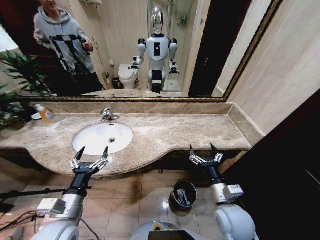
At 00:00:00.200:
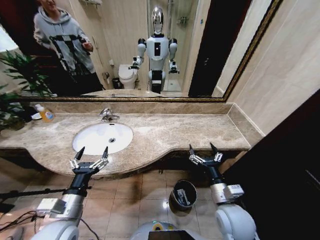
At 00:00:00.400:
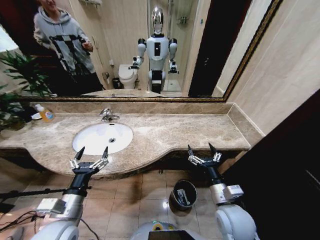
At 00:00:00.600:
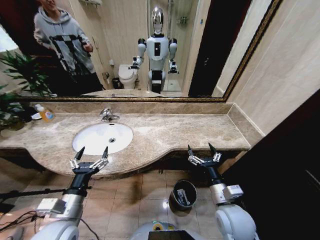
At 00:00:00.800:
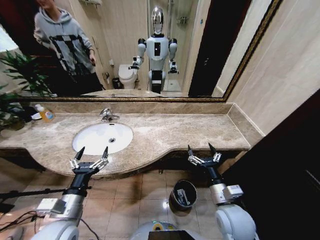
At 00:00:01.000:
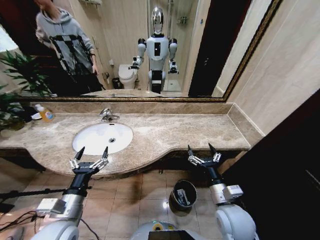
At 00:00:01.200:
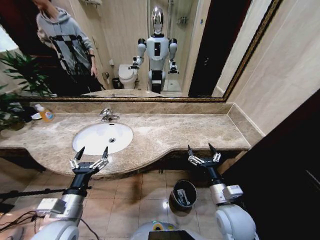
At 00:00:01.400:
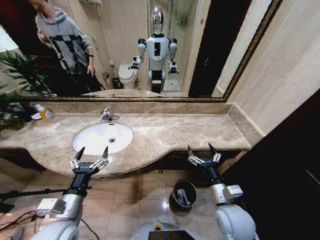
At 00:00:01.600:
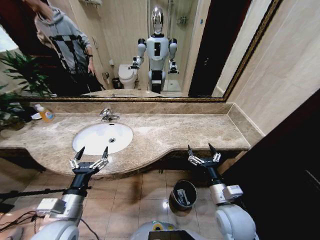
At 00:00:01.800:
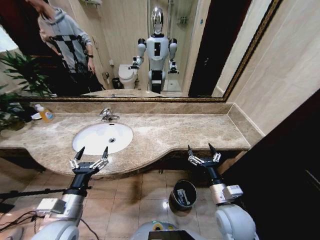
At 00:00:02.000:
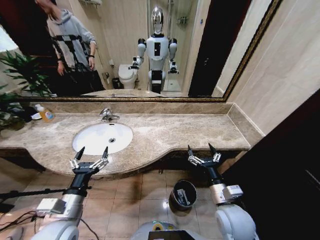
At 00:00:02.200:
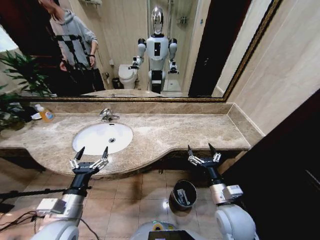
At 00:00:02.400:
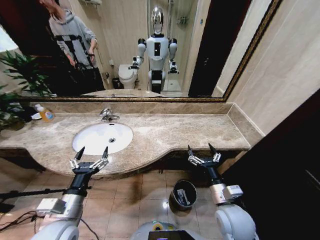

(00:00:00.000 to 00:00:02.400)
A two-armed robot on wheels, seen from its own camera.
Task of the whole recording: Pick up the trash from the sink and place it in the trash bin.
00:00:00.000 - 00:00:02.400: Both grippers stay put.
